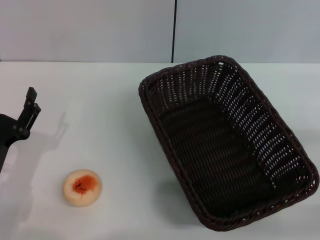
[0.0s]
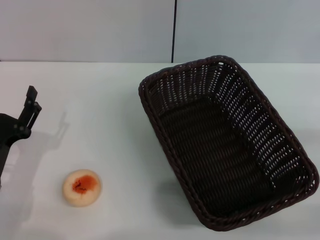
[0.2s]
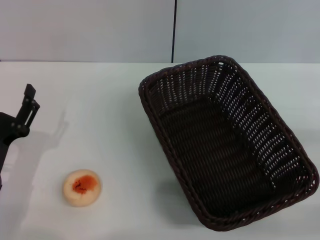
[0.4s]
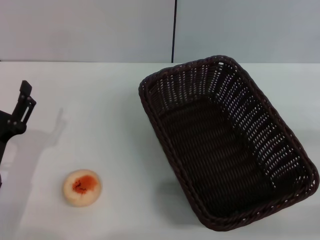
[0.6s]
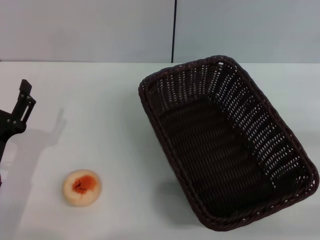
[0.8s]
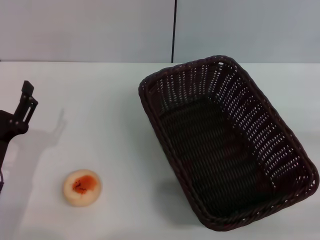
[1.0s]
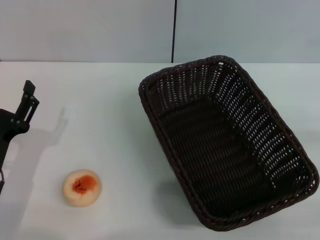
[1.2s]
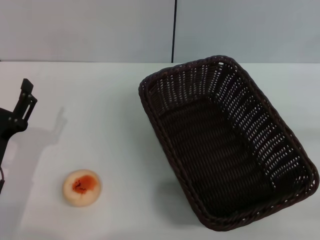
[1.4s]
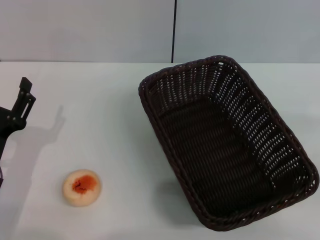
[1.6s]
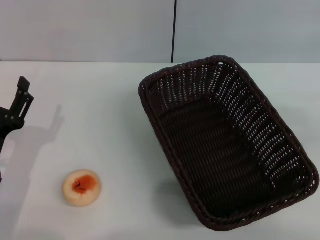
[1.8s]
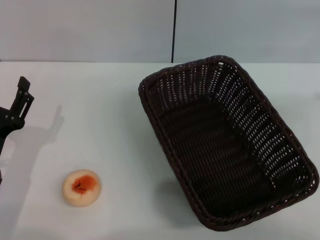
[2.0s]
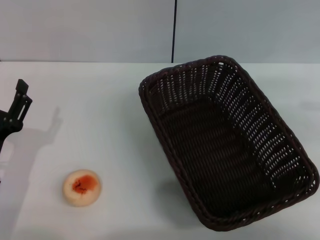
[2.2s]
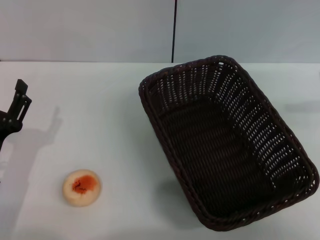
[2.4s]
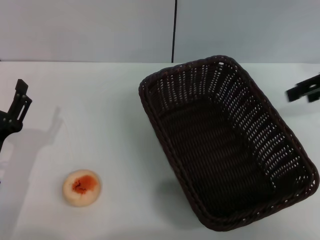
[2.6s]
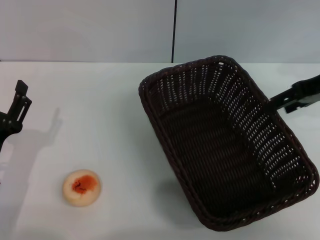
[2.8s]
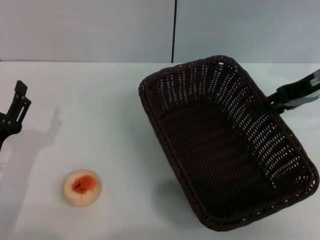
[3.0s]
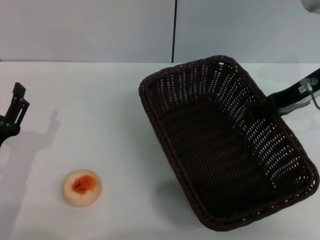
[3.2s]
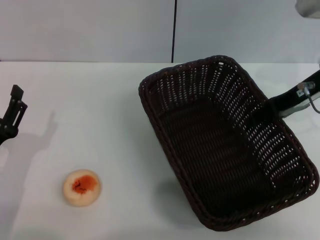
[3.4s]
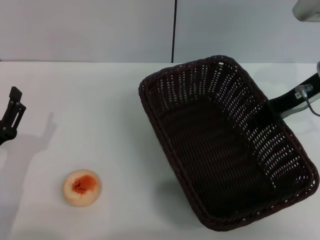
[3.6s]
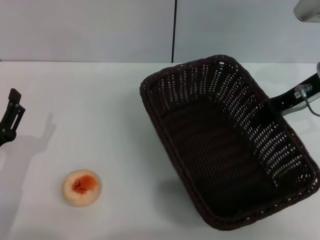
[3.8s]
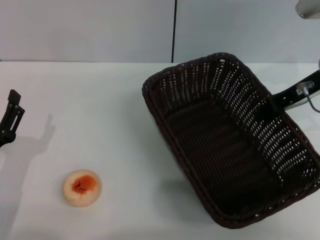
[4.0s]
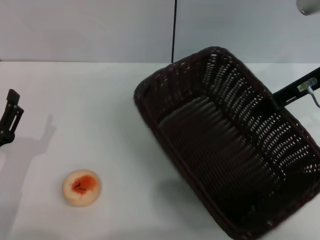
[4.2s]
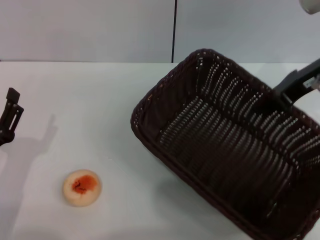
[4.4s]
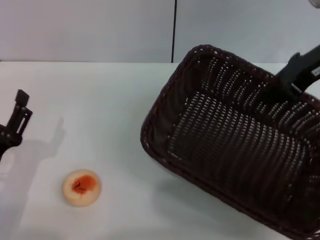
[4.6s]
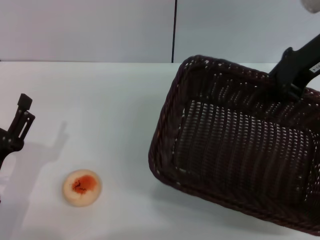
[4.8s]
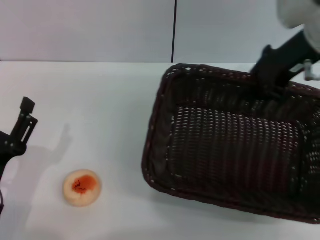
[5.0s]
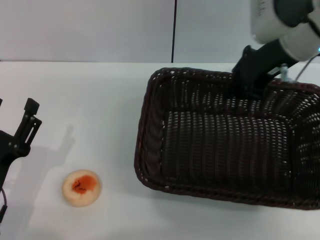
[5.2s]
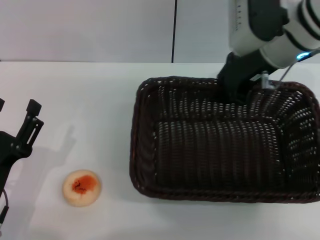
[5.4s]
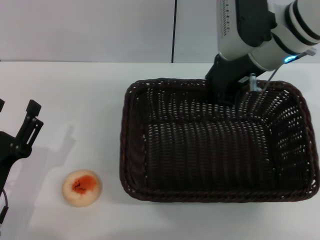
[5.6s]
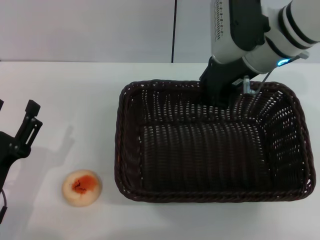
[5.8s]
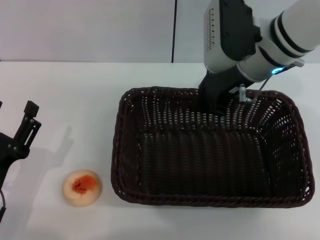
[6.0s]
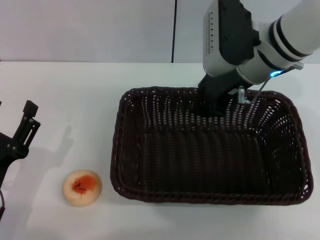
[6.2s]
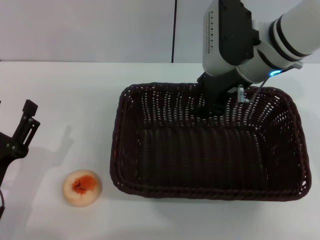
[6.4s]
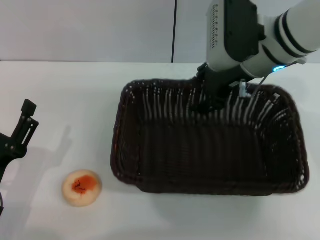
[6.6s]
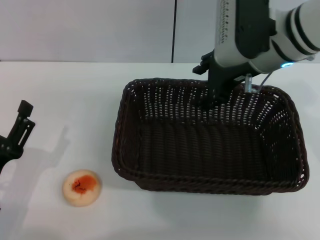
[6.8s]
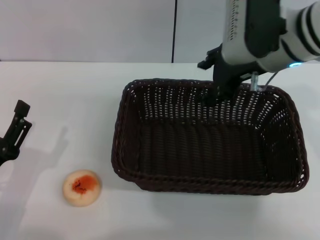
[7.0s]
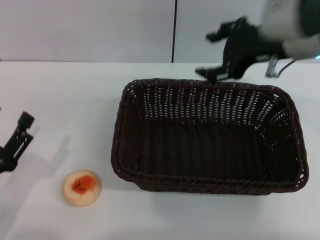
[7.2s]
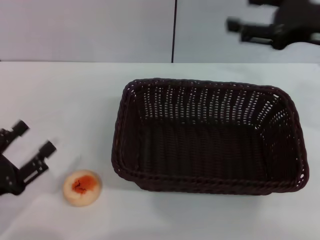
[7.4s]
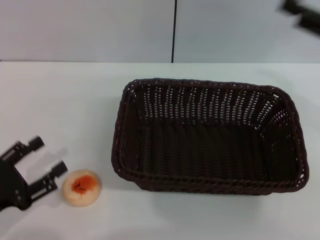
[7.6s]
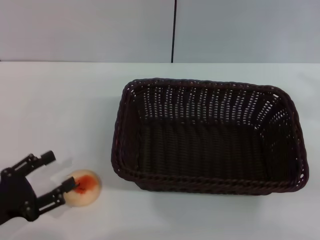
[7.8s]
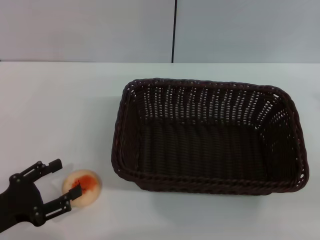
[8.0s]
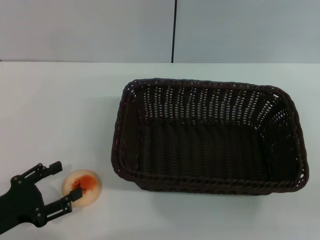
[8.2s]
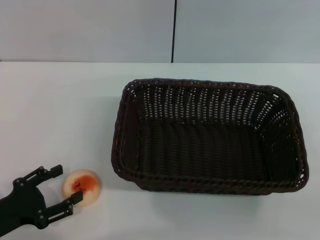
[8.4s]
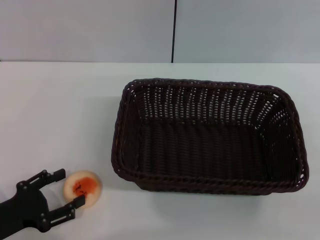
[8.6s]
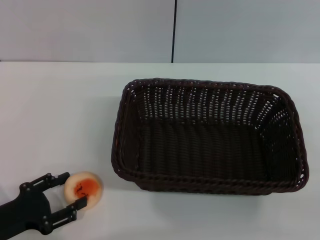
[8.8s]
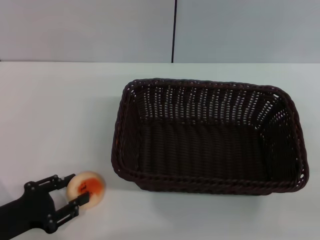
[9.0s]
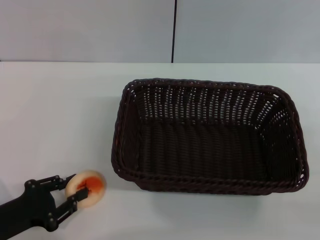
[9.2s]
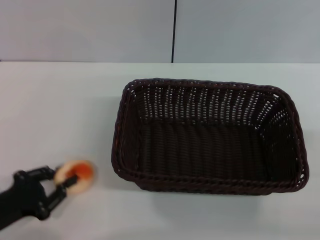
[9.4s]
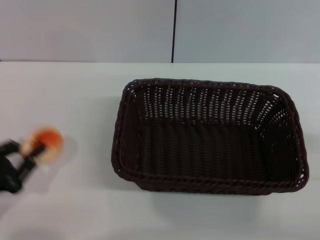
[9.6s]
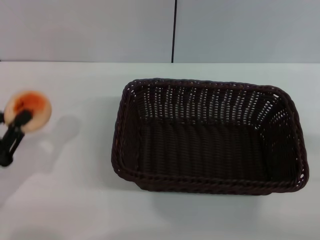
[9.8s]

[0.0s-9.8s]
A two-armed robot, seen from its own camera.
Step, 0.0s to 6.8s: Move the basket to the center of view with the right gripper.
Step, 7.0s to 9.4s: Pick up the egg yolk pastry with the left gripper.
1.4s to 2.8s: The right gripper shifts some 25 cm forward, to the left and upward.
2.8s to 4.2s: The right gripper closes up.
4.2s to 5.6s: The right gripper goes approximately 10 cm to the left.
5.6s to 7.0s: The right gripper opens its fingers.
7.0s to 8.4s: The right gripper moves to the right and backward, roughly 30 cm.
8.4s to 9.8s: The left gripper closes its fingers.

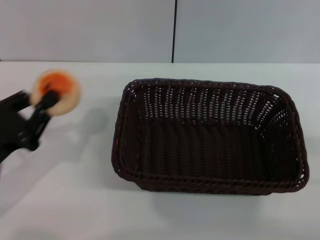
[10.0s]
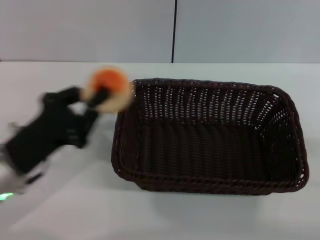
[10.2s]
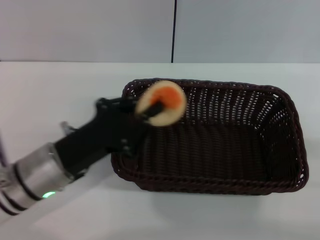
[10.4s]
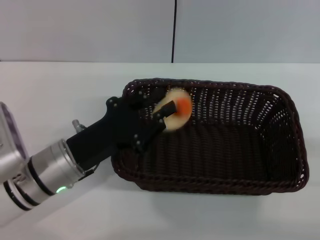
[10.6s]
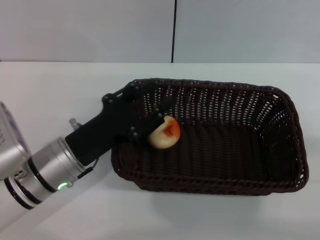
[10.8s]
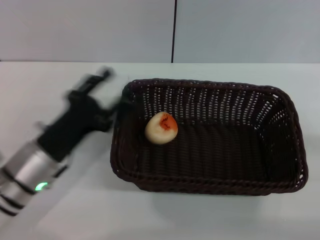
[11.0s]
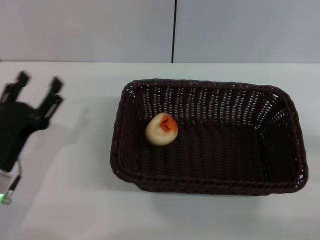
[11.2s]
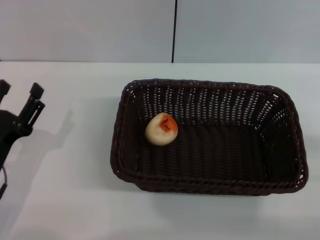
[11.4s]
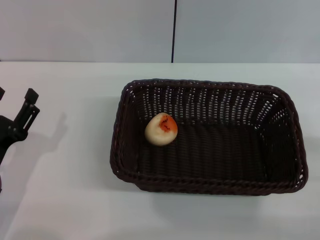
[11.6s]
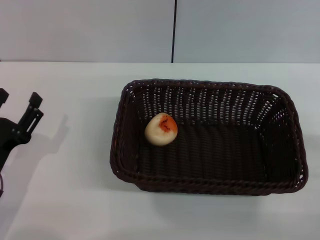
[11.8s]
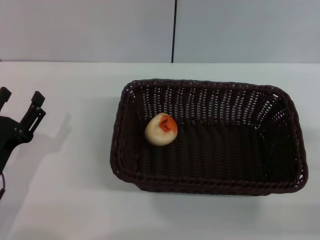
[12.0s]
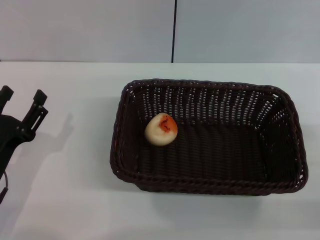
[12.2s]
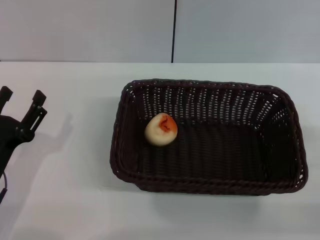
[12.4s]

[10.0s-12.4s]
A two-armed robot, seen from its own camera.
Step, 10.0s to 10.8s: Place the egg yolk pastry into the basket with the left gripper.
10.0s to 11.2s: The left gripper reaches approximately 10 cm to the right, then returns, and opens up.
11.2s to 12.4s: There are only small adjustments of the grippers.
